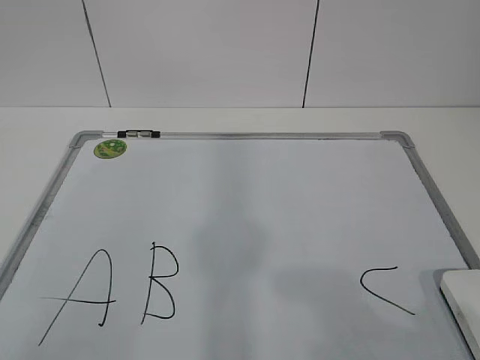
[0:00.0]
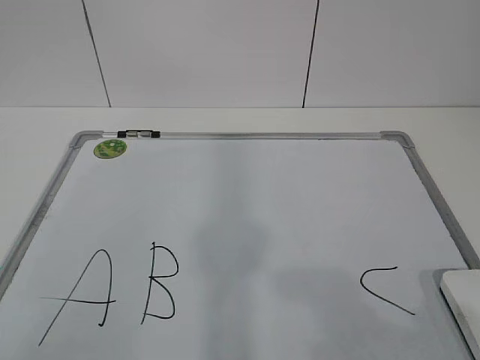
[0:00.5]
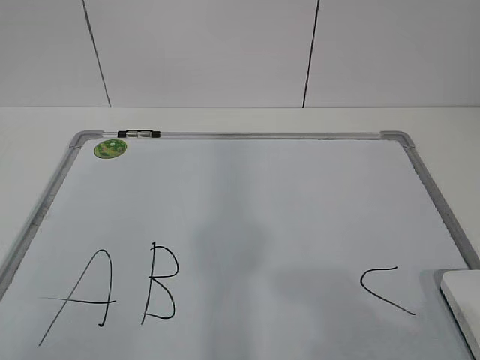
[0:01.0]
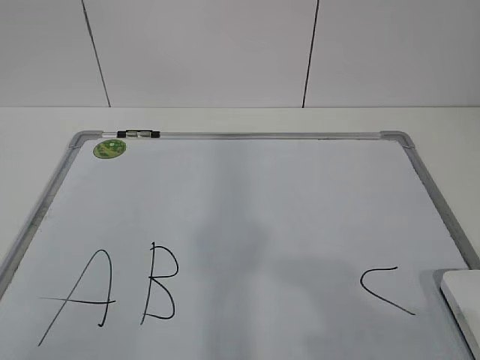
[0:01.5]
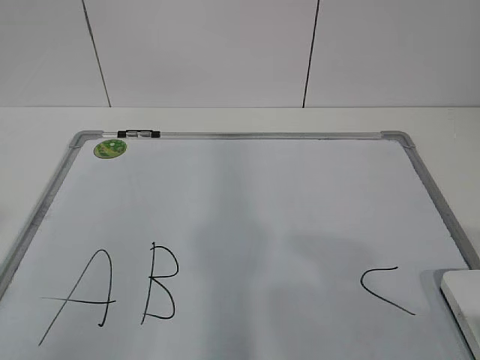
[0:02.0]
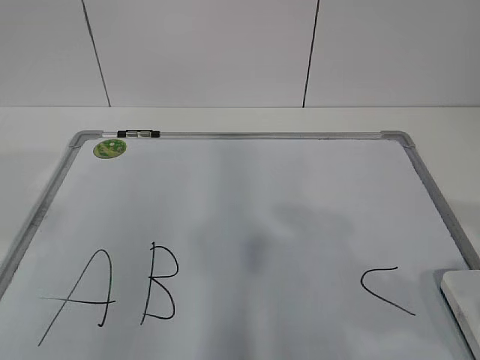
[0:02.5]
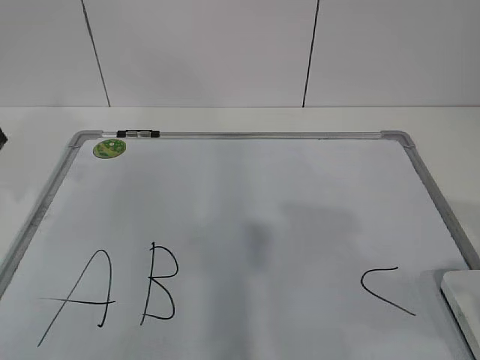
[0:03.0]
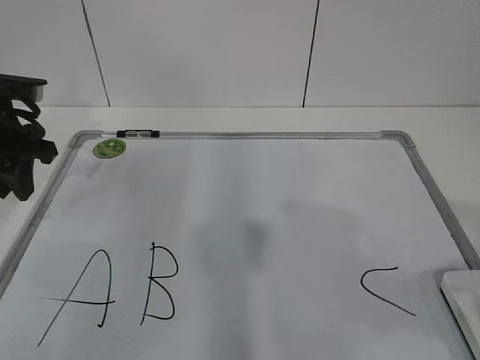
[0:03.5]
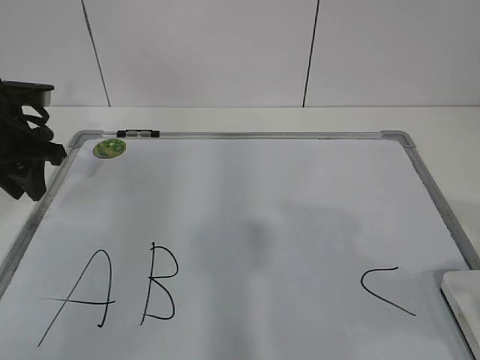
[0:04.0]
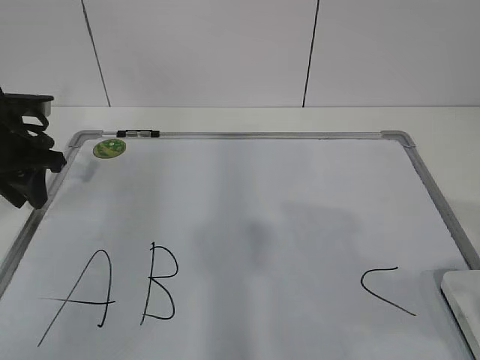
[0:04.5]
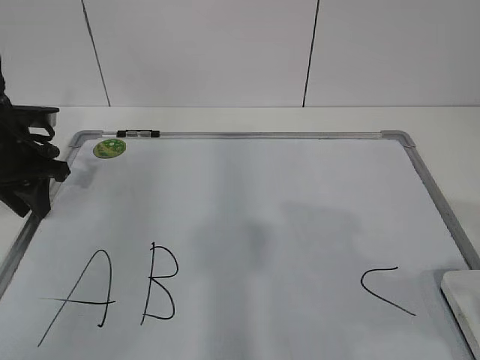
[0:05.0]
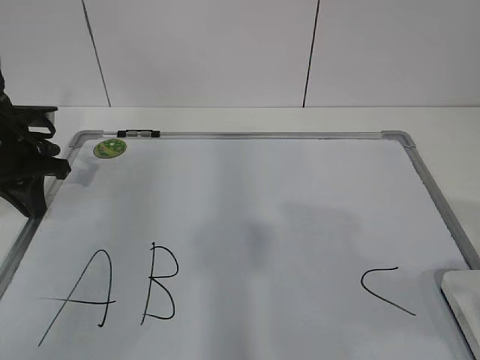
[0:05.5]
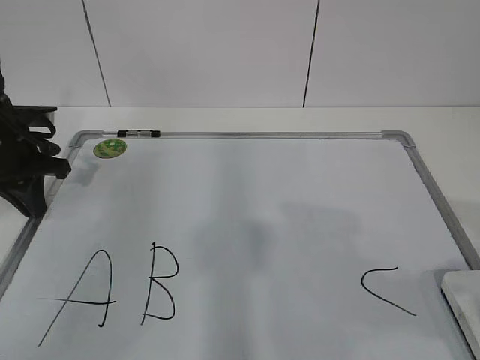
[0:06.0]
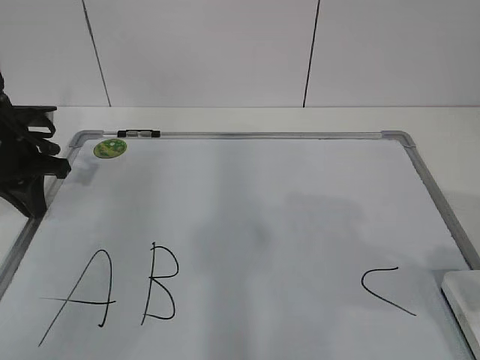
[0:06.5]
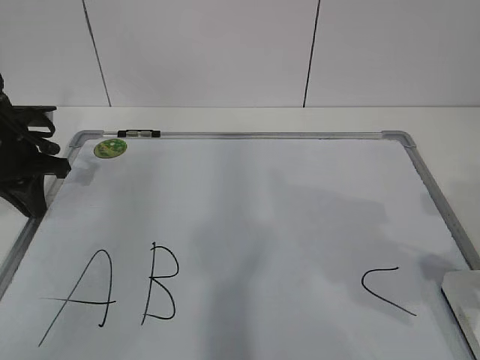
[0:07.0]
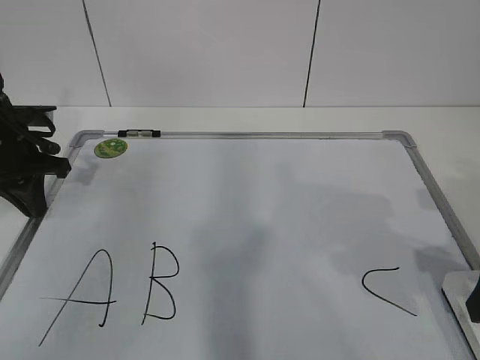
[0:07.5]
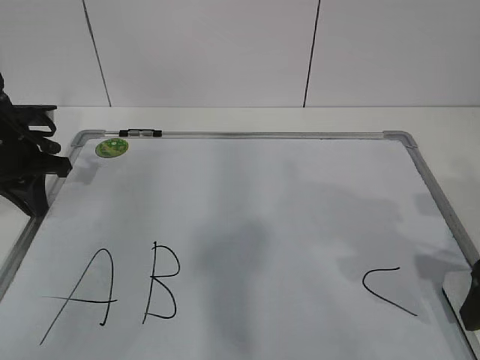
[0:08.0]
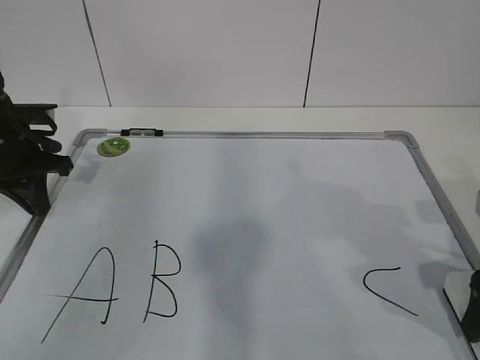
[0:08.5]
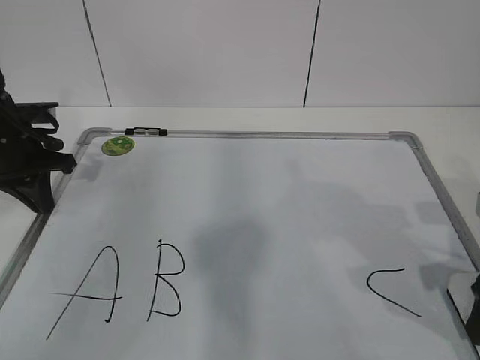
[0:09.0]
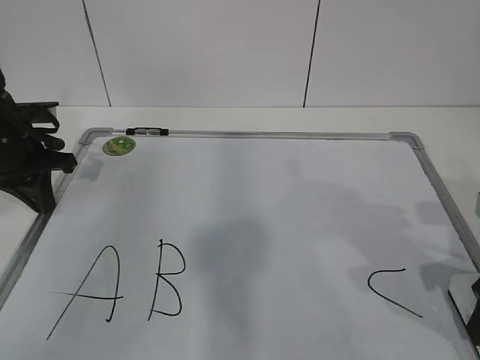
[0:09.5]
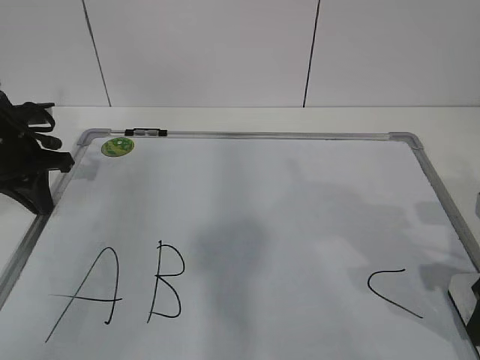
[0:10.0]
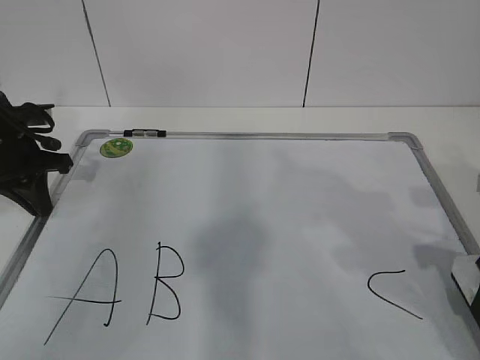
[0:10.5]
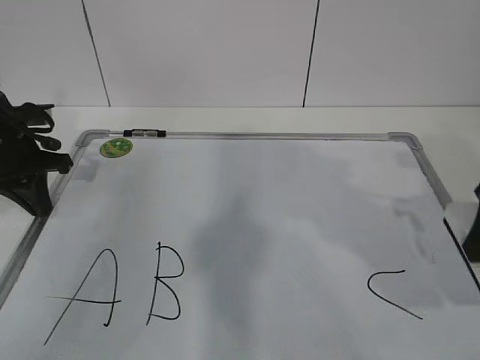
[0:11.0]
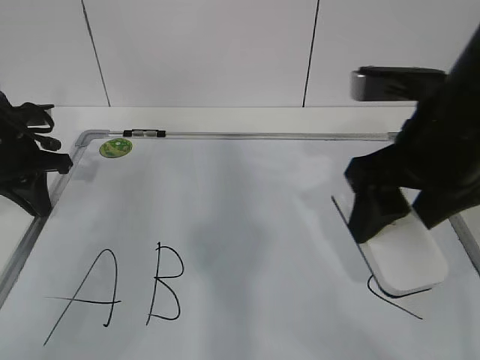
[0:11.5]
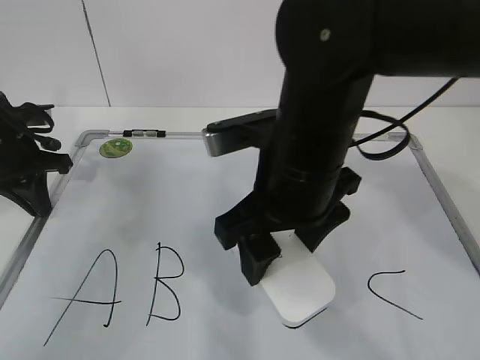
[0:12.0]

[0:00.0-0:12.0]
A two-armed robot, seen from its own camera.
Task of the whole recording: pick up the eraser on the blackboard and erase the letter "B".
Step, 0:00.0 to 0:04.0: Hold the drawing board steady with your left hand.
Step, 0:05.0 to 0:08.0: Grab the eraser with your right hand.
0:02.0 to 0:04.0: The left gripper travels forward by approximately 35 cm.
0:04.0 to 0:06.0: The left gripper closes its fingers.
0:06.0 to 0:08.0: The right gripper is displaced forward and downward by roughly 15 cm, and opens its fingers.
0:08.0 to 0:10.0: The right gripper closes its fingers.
0:10.0 to 0:12.0: The right gripper heads to the left, covering some 25 cm.

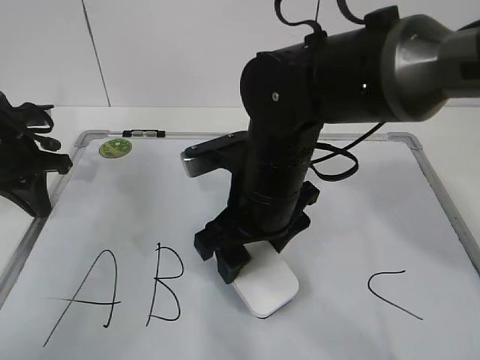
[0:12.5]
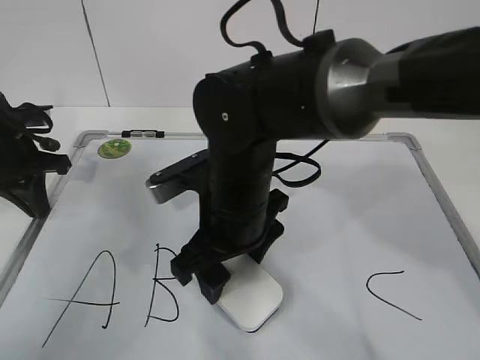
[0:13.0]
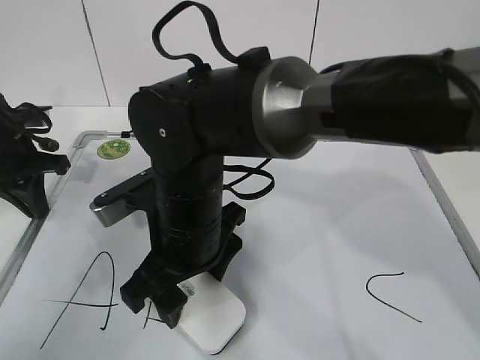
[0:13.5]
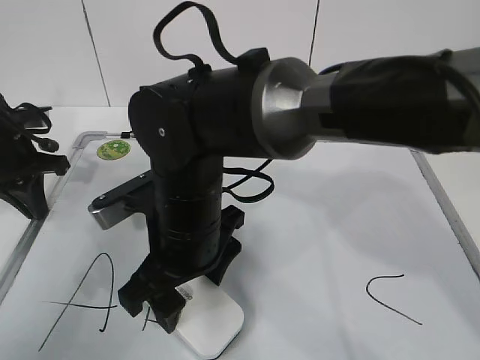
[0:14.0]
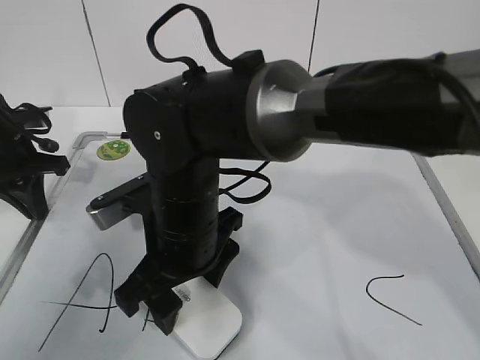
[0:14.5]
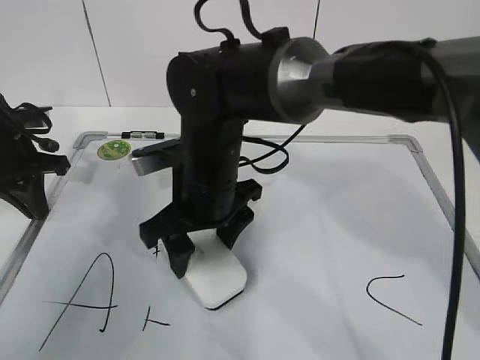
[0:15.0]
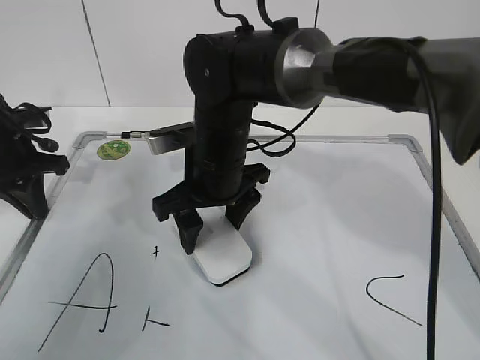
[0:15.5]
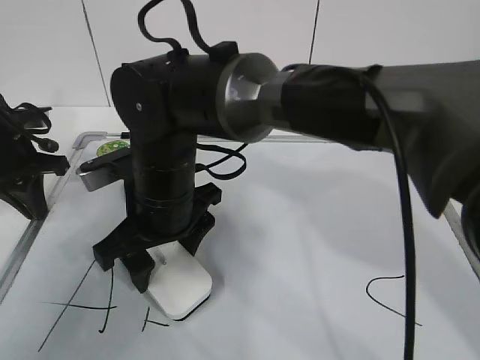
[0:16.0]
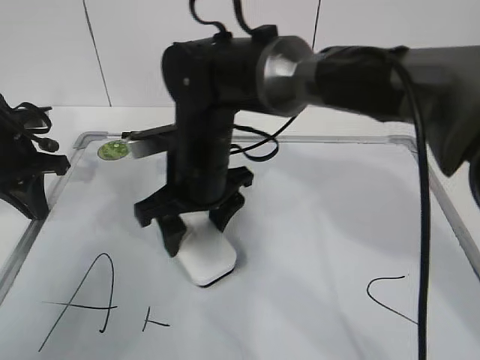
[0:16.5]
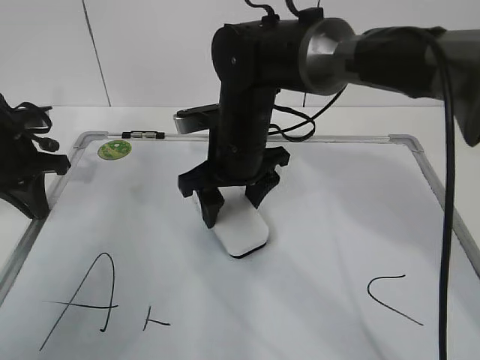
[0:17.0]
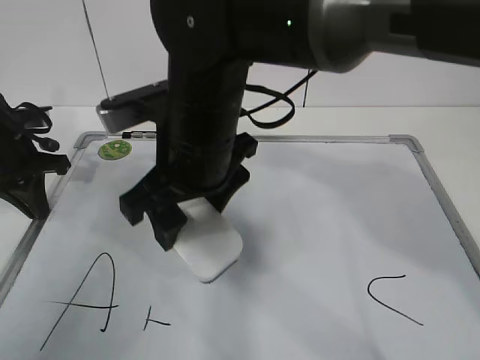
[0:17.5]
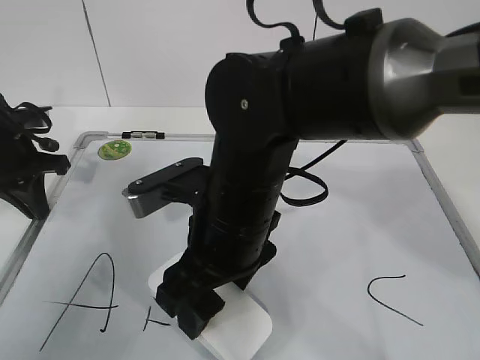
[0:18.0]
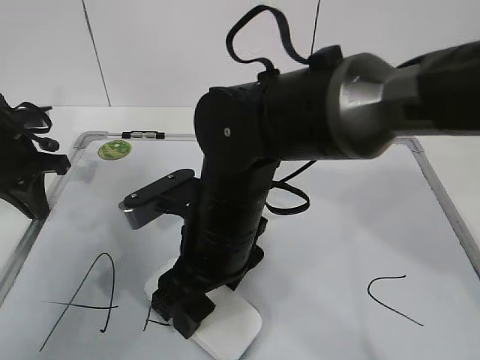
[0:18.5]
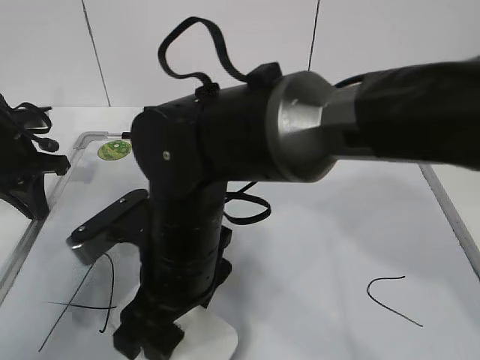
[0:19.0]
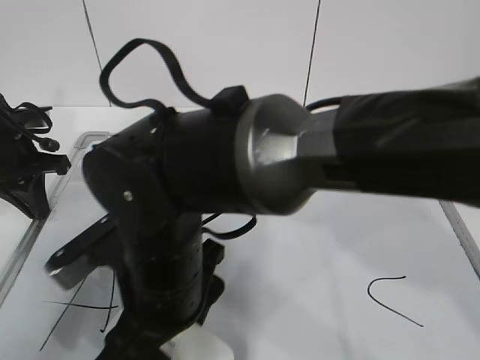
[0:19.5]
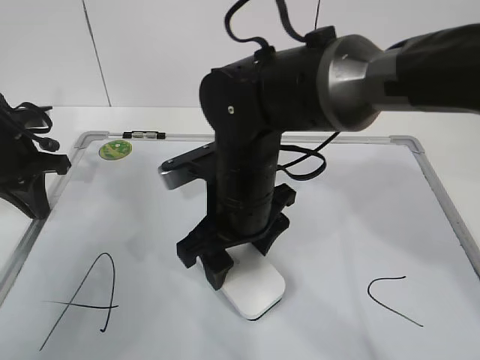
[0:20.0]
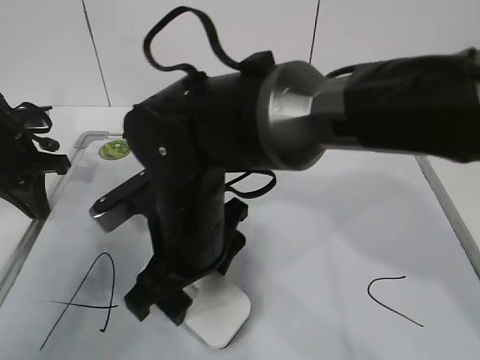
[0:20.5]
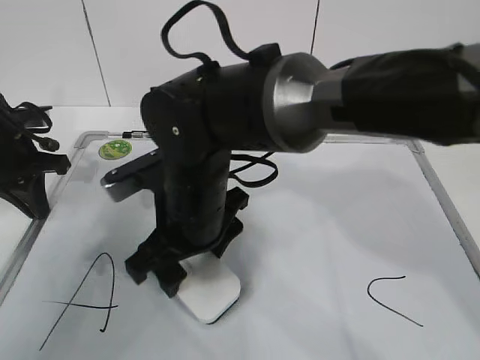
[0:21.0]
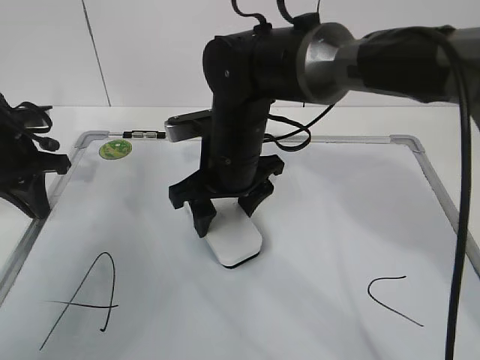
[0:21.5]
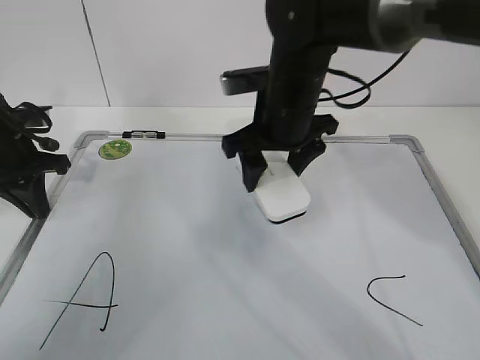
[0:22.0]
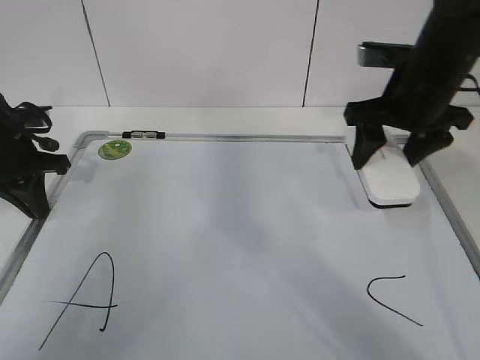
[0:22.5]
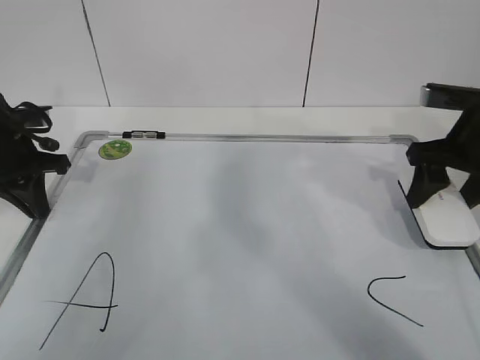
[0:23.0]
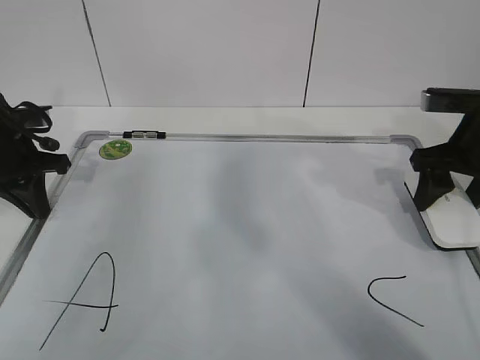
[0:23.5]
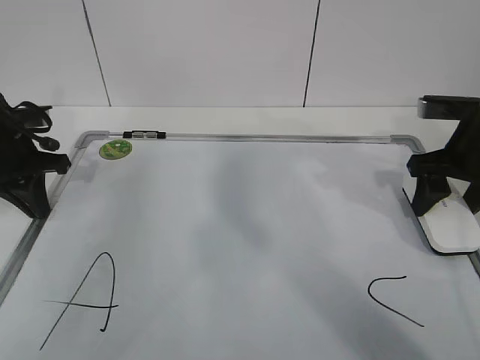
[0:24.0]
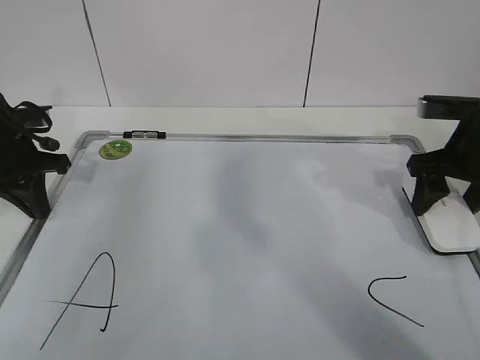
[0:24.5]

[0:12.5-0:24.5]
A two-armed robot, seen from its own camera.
Task of the whole recording: pick up the eraser on the blackboard and erase the letter "B".
Step, 0:12.5 to 0:17.5: Erase the letter B with your right hand.
Step, 0:18.0 to 0:20.0: Put down the eraser with your right hand.
0:12.5 to 0:14.5: The right gripper is displaced to the left by approximately 10 cm.
0:14.5 to 0:16.5: The right gripper goes forward and backward, some 10 cm each way, reversing 2 times.
0:16.5 to 0:18.5: The right gripper goes about 10 cm backward.
0:18.5 to 0:20.5: The right gripper travels backward and back again, approximately 5 cm each way.
0:20.5 to 0:22.5: The right gripper heads to the right and forward, covering approximately 25 cm.
0:22.5 to 0:24.5: The right gripper shifts approximately 10 cm to the right and downward.

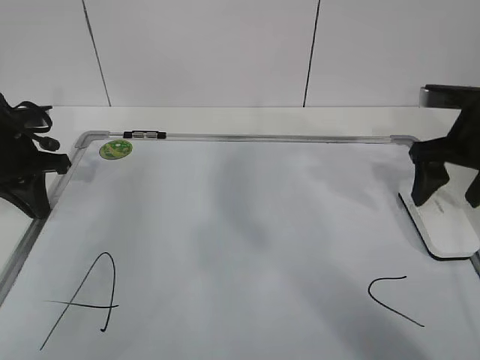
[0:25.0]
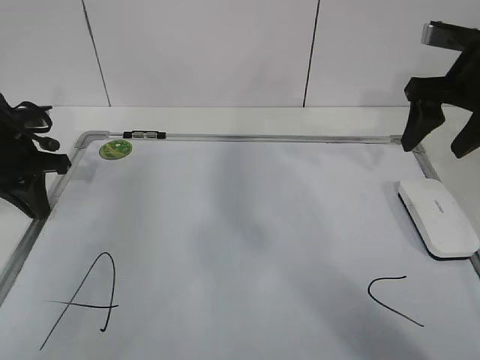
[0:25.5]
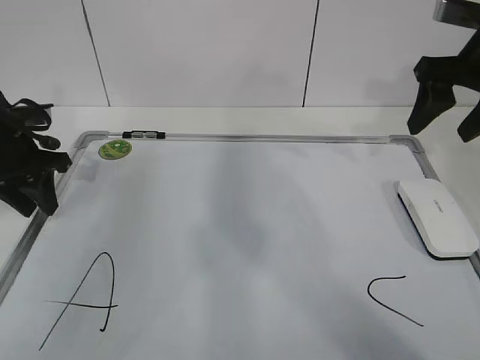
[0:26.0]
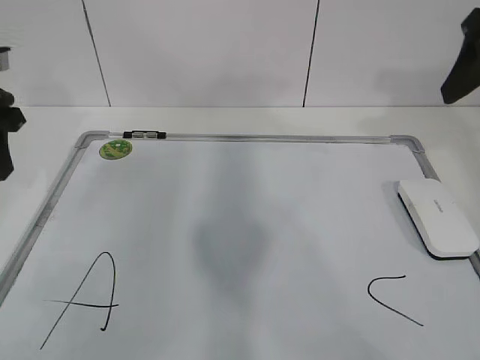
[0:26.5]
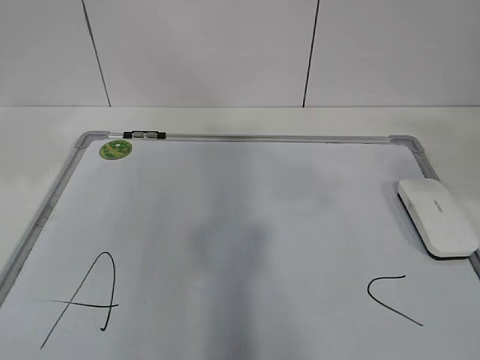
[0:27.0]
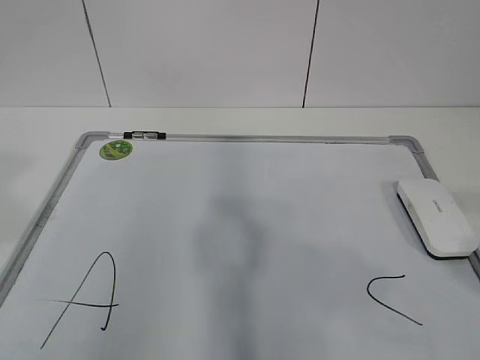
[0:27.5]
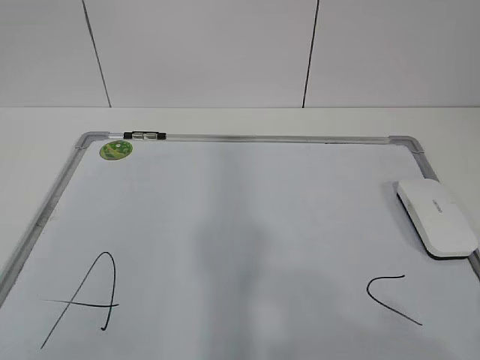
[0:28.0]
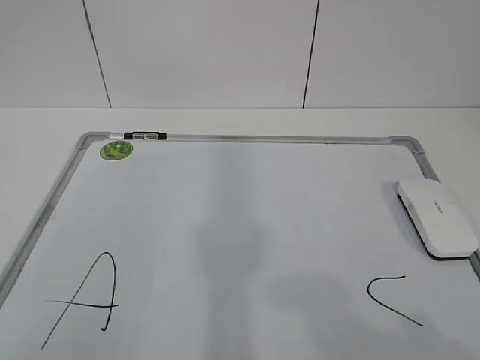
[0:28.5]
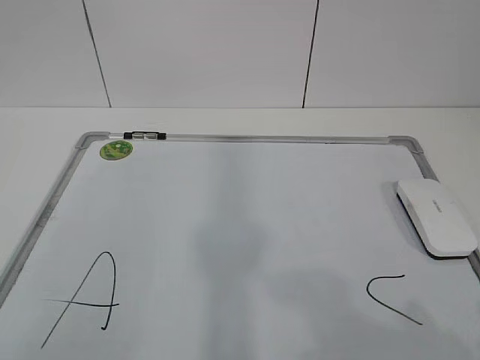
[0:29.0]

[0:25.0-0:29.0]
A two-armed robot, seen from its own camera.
Task of the whole recording: pick up the eraser on the blackboard and erase the letter "B".
0:25.0 to 0:27.0: The left gripper travels upward and backward by some 20 cm, and opens its fingers. Meanwhile the right gripper goes approximately 25 cm backward and upward, and closes its fingers.
0:27.0 to 0:29.0: The right gripper travels backward and downward by some 20 cm, while the left gripper moves backward, approximately 25 cm.
